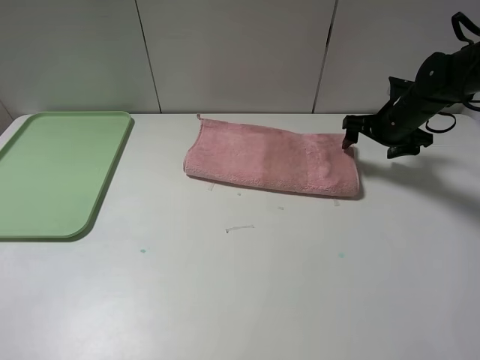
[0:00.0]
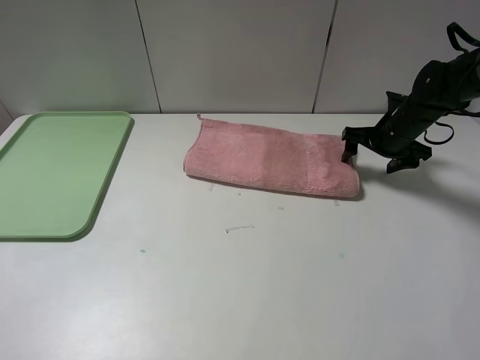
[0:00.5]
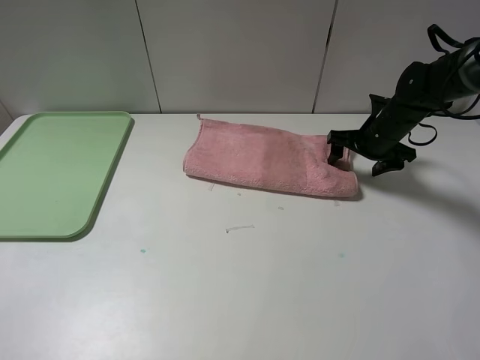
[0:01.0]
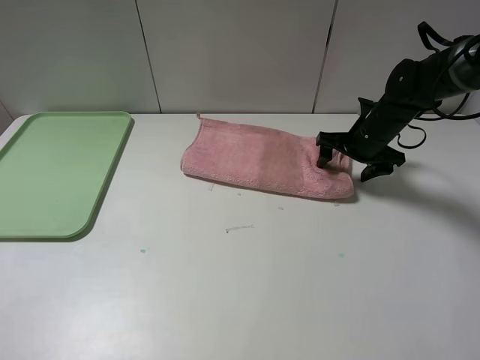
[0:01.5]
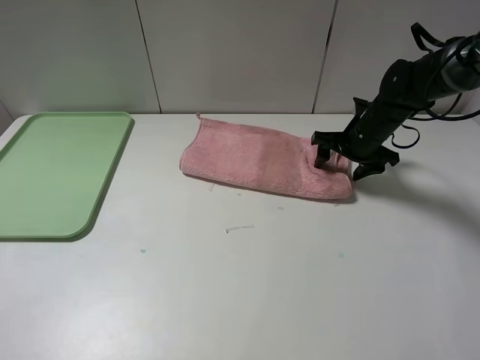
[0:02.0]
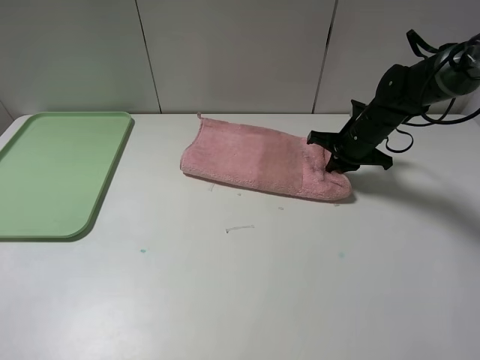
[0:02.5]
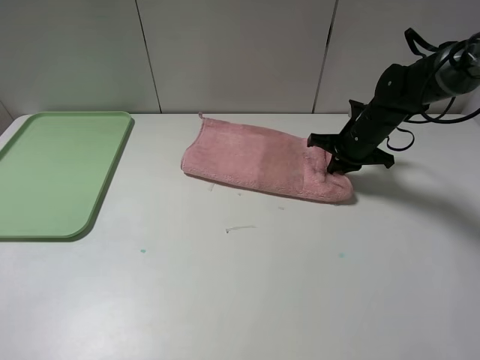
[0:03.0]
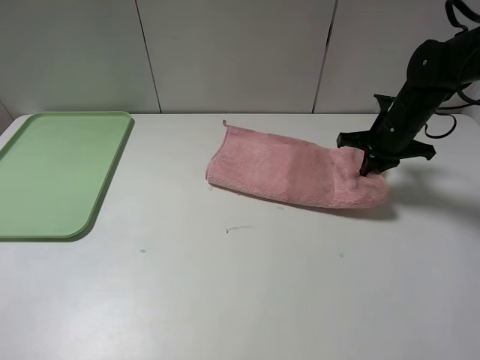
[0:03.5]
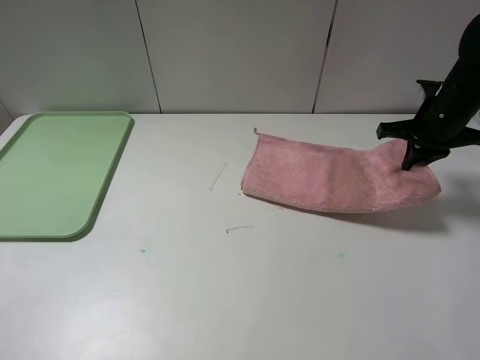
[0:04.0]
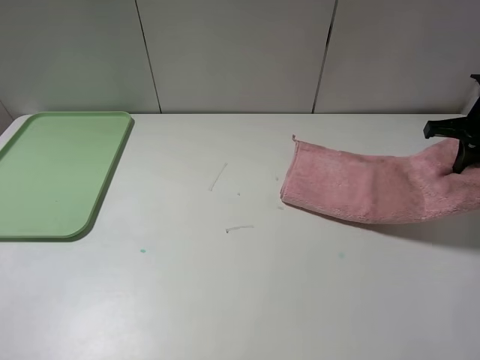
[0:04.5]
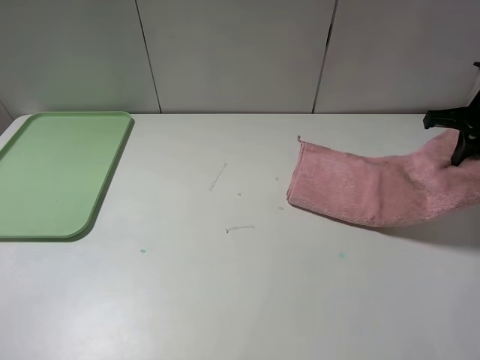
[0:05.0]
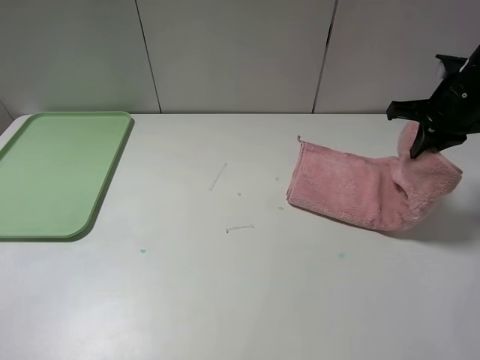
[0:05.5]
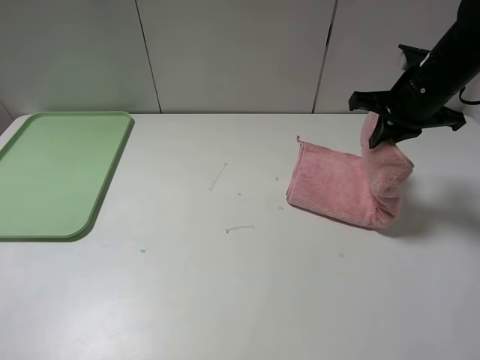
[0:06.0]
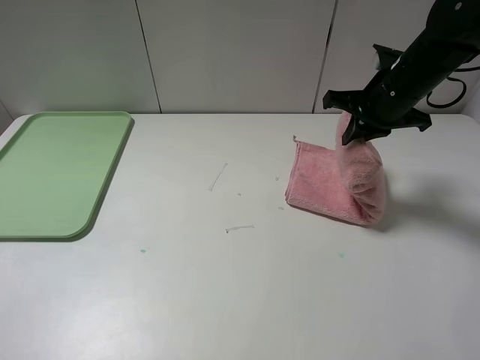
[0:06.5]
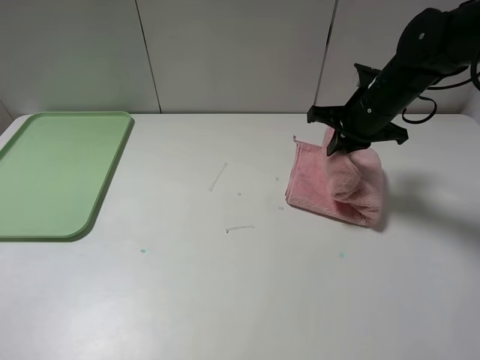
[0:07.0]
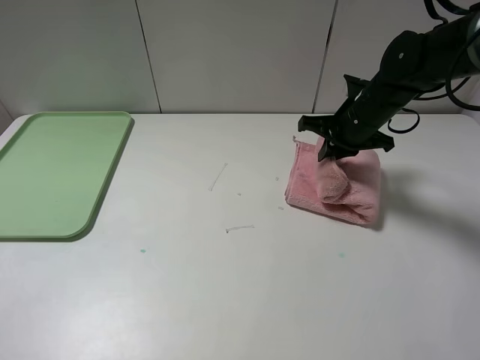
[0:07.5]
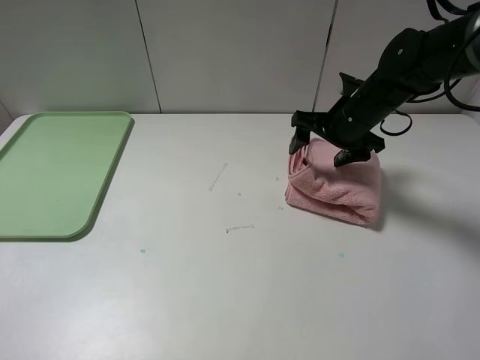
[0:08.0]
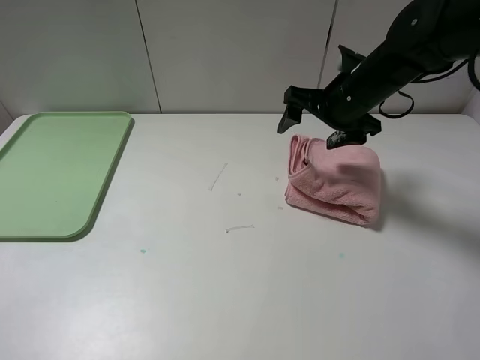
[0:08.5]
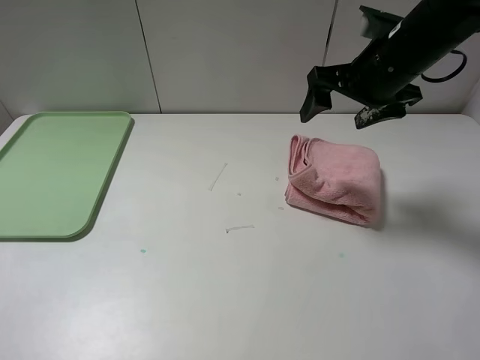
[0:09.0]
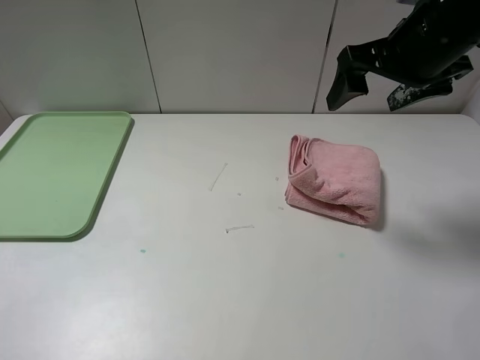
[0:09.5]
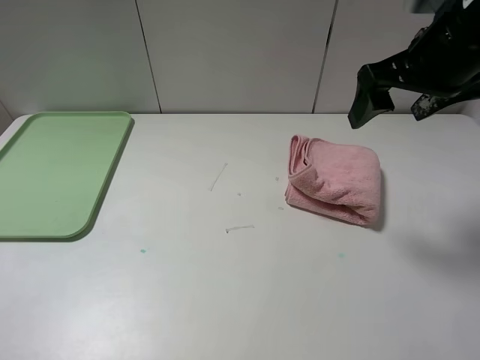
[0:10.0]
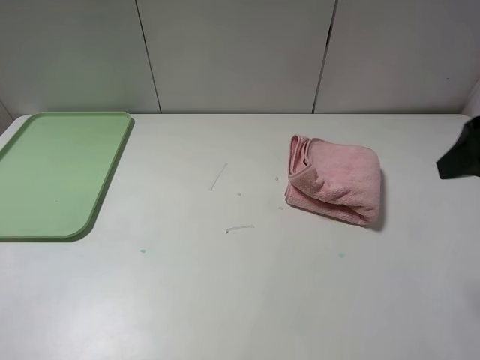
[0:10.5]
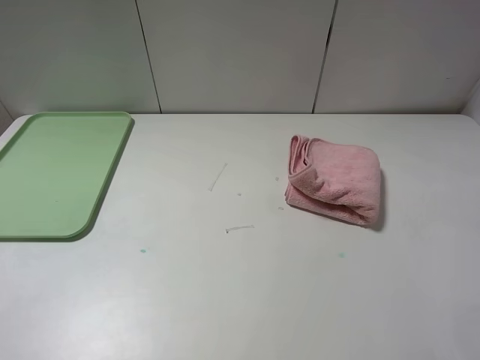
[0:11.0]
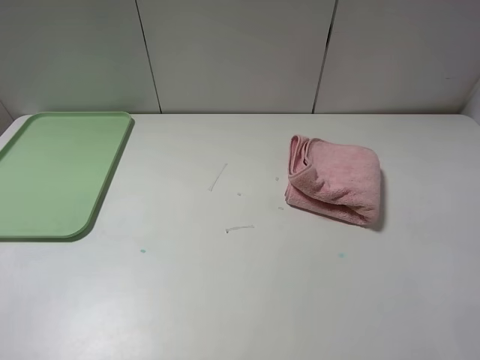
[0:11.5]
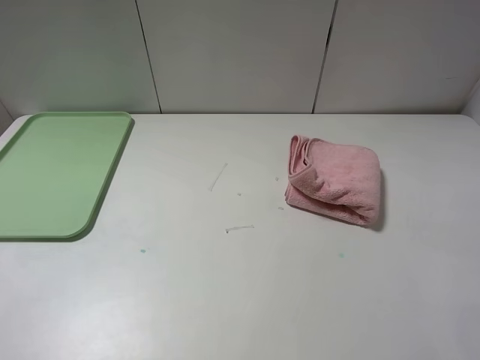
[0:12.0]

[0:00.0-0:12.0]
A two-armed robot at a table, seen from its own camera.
Step, 0:00.0 to 0:08.0: Fold the pink towel from right to left with right gripper.
0:00.0 to 0:02.0: The right gripper travels to the left by some 5 cm.
0:02.0 to 0:04.0: The right gripper moves upward and to the right, some 10 cm, and closes up.
0:04.0 to 0:06.0: The right gripper heads to the left, covering some 5 cm.
0:06.0 to 0:08.0: The right gripper shifts about 10 cm downward and to the left, and opens its fingers.
0:08.0 to 0:10.0: The right gripper is displaced upward and backward by about 20 cm.
0:10.0 to 0:12.0: The right gripper heads backward, covering about 25 cm.

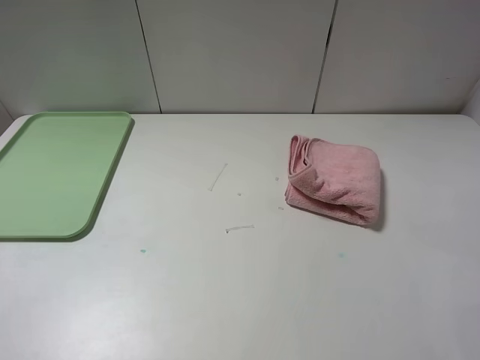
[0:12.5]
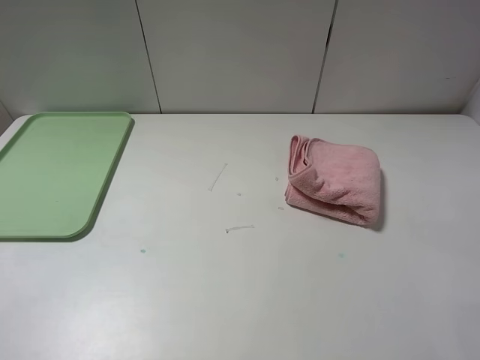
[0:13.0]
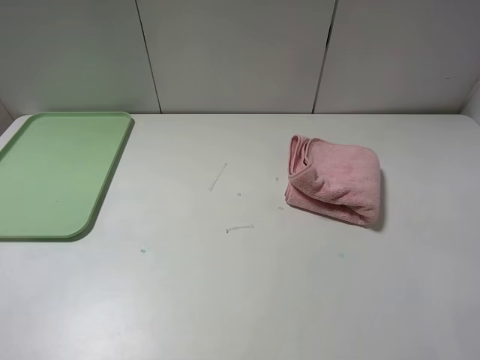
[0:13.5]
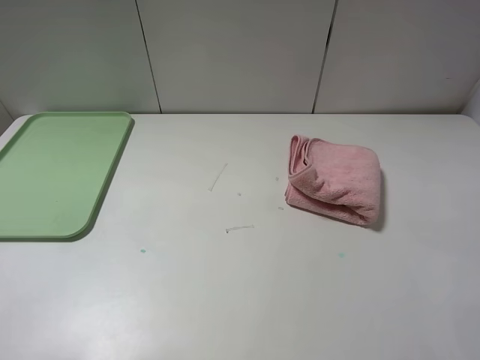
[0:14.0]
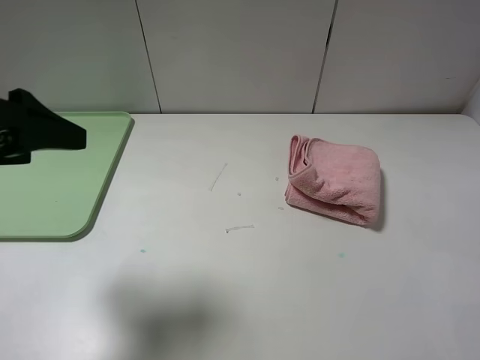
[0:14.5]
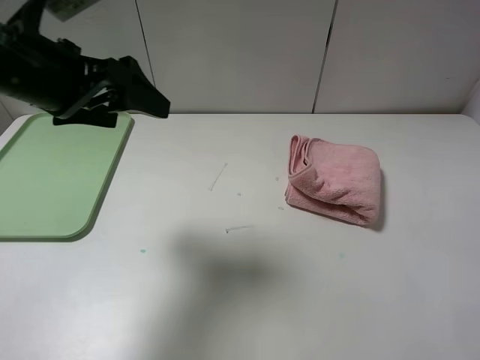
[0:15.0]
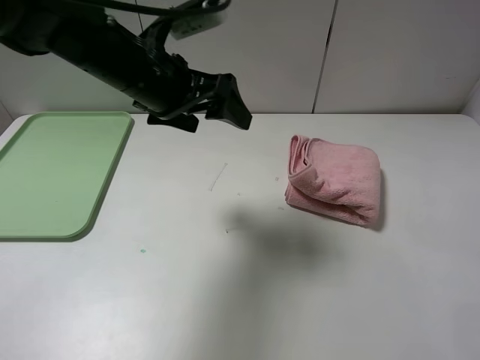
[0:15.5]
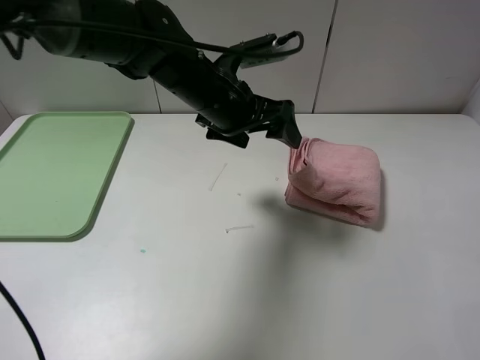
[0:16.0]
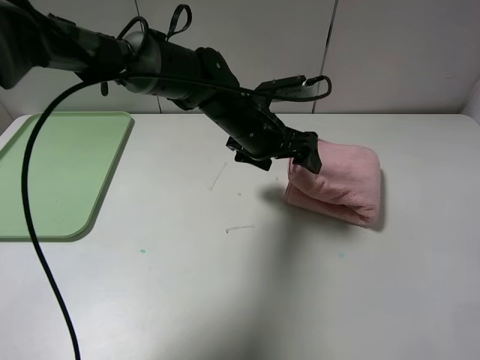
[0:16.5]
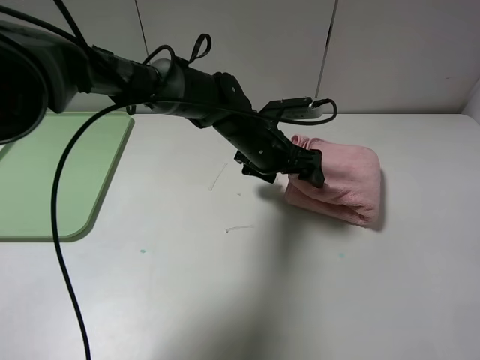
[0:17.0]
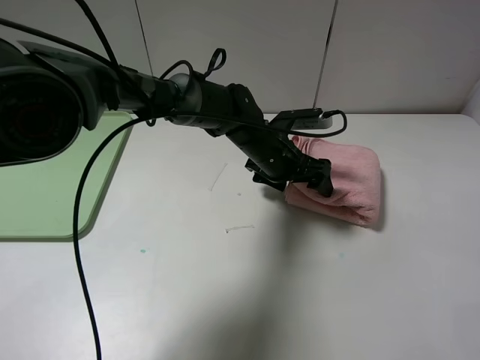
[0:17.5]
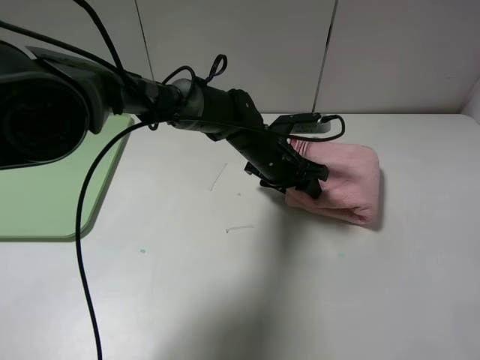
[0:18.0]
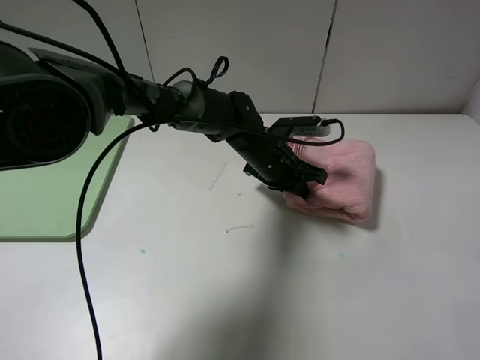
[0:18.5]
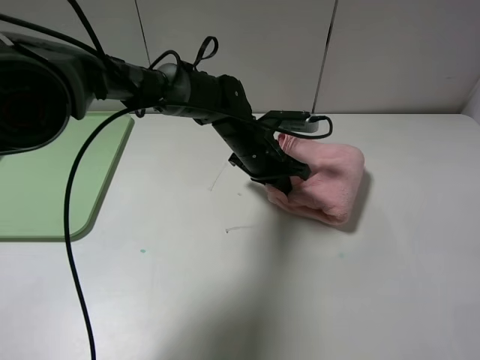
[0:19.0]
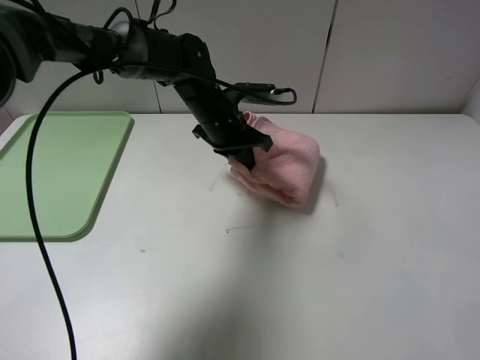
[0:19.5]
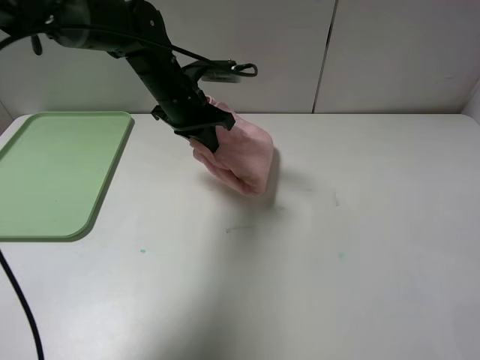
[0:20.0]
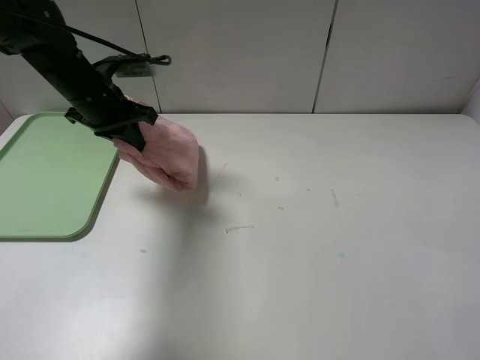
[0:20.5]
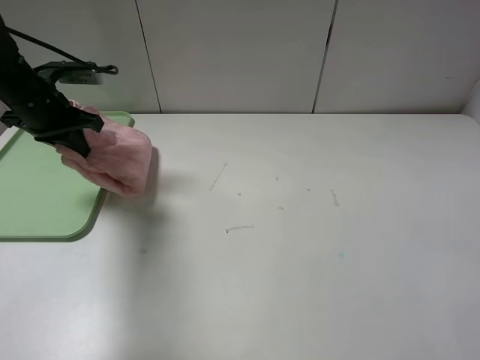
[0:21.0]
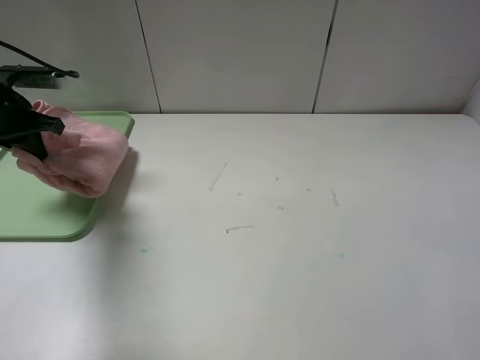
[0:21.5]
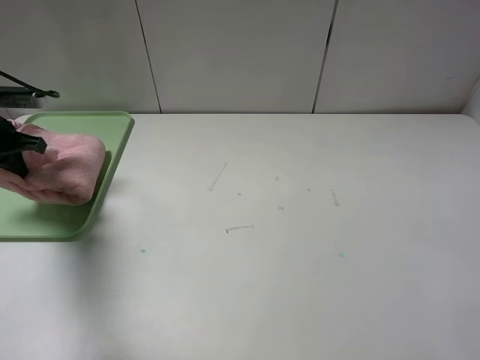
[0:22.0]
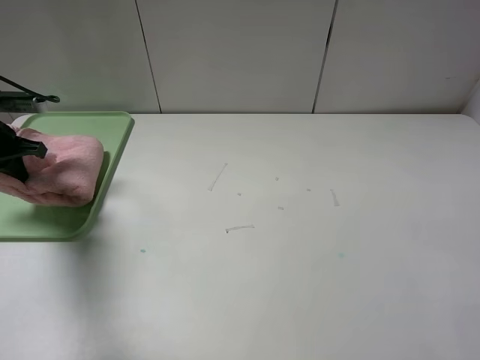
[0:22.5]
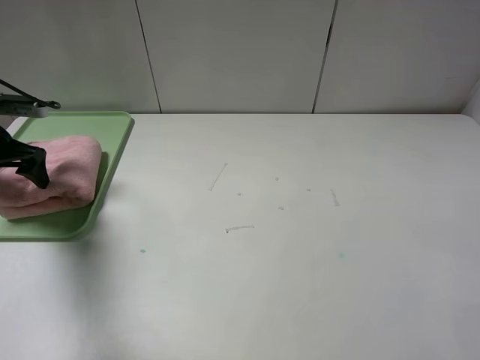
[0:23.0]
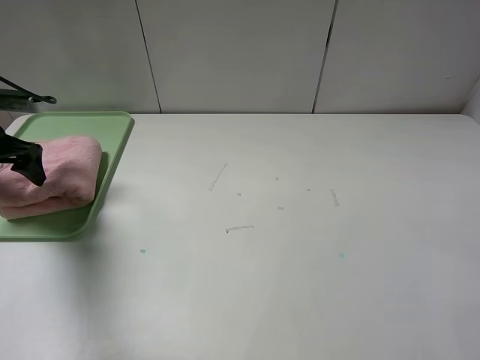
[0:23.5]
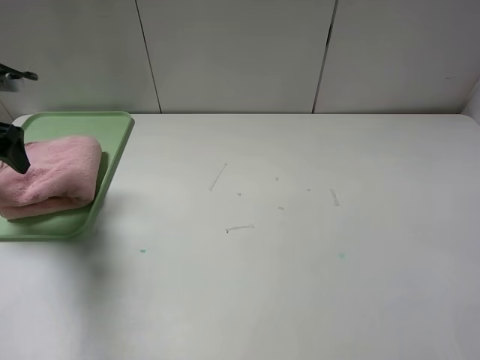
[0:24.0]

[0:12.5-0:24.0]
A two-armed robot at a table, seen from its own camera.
Step, 0:12.5 to 0:23.0: Place the folded pink towel on the tray with the left gripper.
0:12.5 to 0:14.5: The left gripper shifts roughly 15 cm forward.
0:14.5 to 0:16.5: The left gripper is displaced to the right, forward and downward by roughly 35 cm.
0:16.5 to 0:18.5: The left gripper heads downward, covering about 5 cm, and closes up.
0:18.5 to 0:20.0: The left gripper heads to the left and upward, covering approximately 20 cm.
0:20.0 to 0:22.0: The left gripper is displaced to the left by about 30 cm.
0:22.0 to 0:24.0: The left gripper goes some 5 cm upward, and opens.

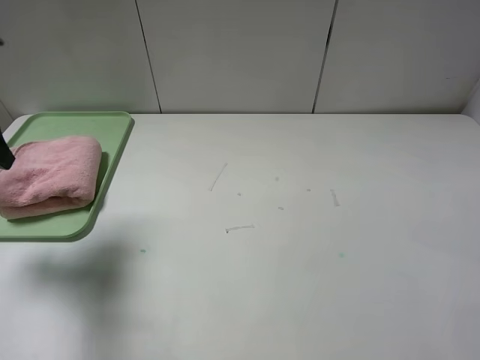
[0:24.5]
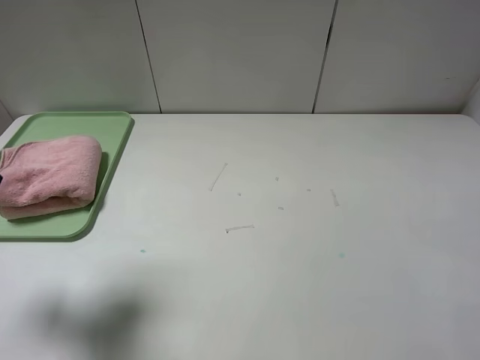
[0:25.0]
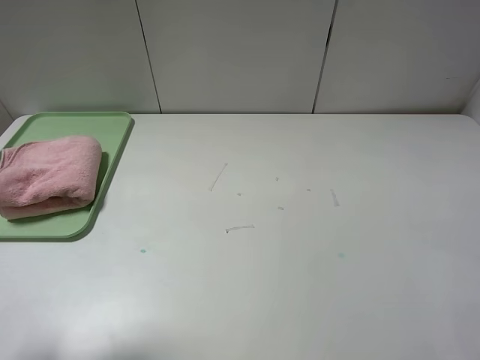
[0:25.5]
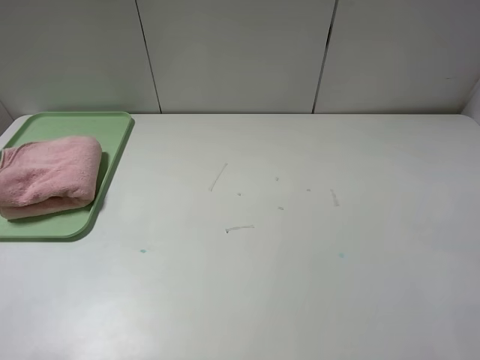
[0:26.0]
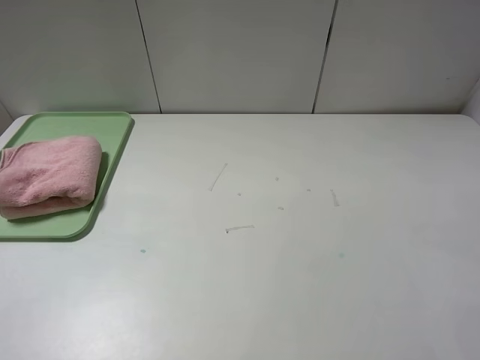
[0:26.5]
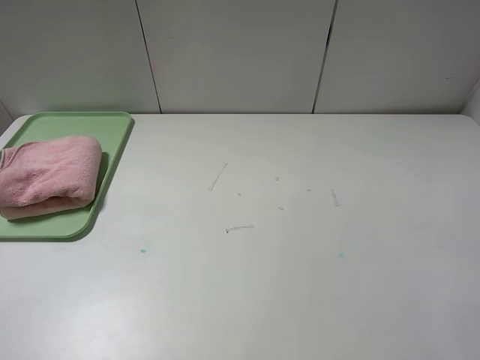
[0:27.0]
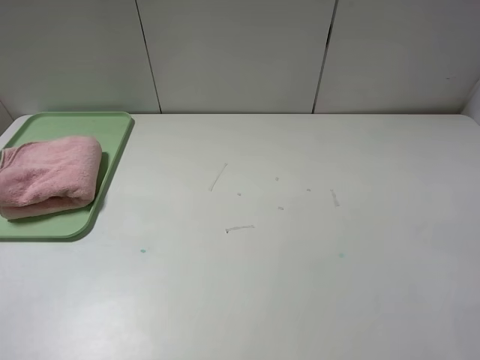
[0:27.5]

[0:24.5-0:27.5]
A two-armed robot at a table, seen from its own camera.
0:24.5 to 0:26.0: The left gripper goes approximately 20 cm backward.
